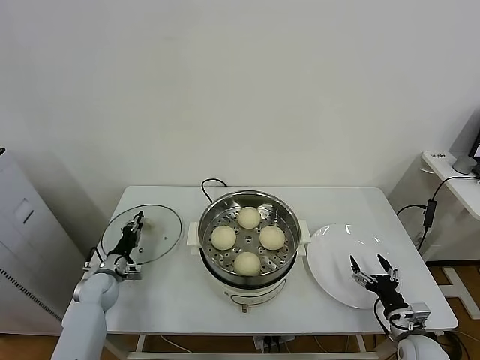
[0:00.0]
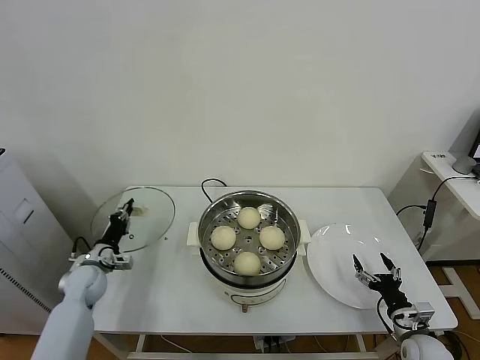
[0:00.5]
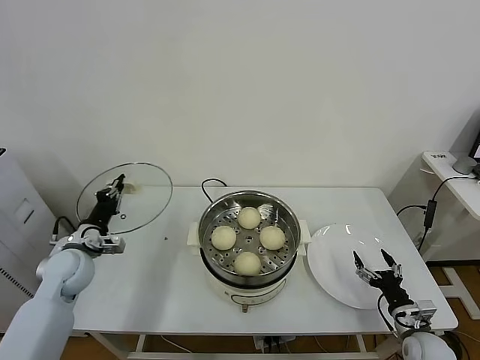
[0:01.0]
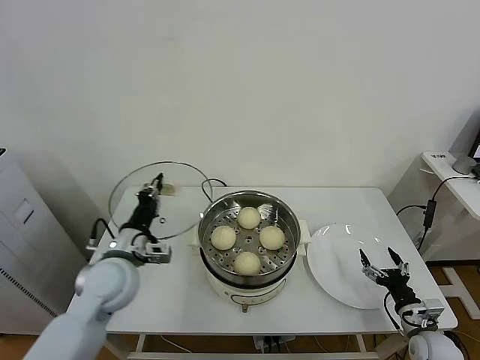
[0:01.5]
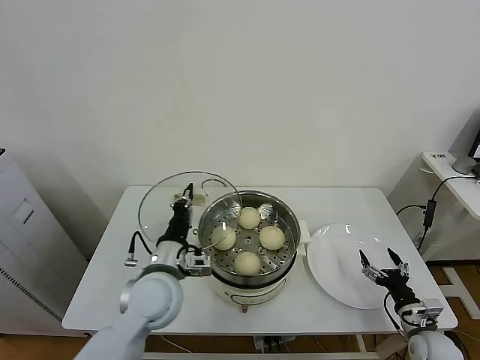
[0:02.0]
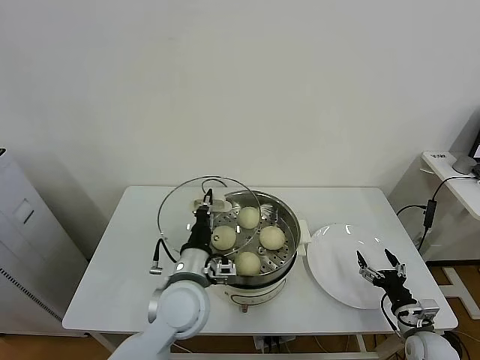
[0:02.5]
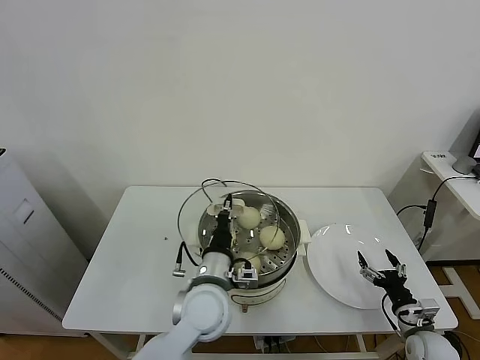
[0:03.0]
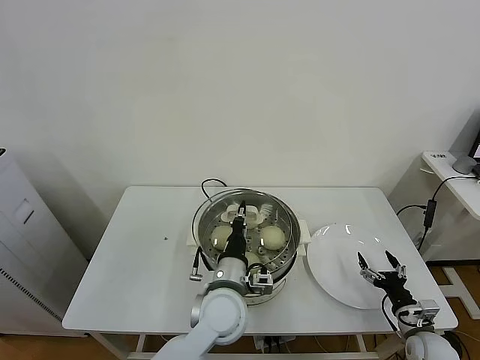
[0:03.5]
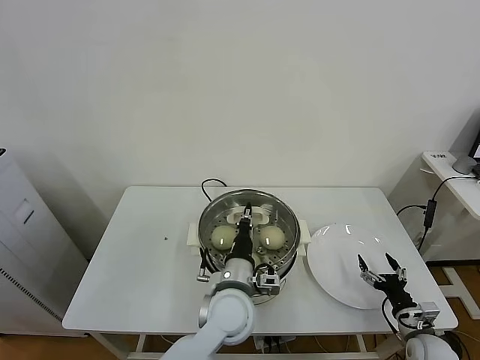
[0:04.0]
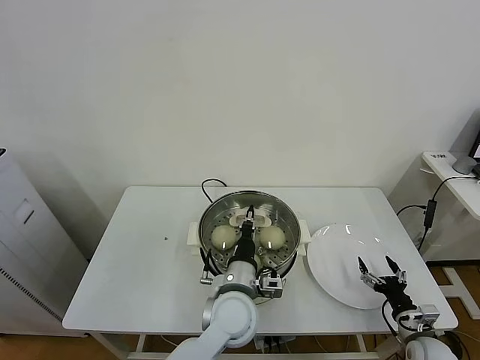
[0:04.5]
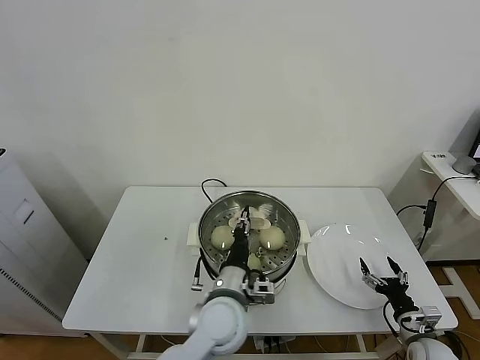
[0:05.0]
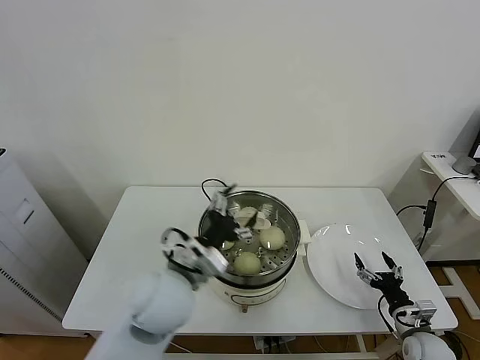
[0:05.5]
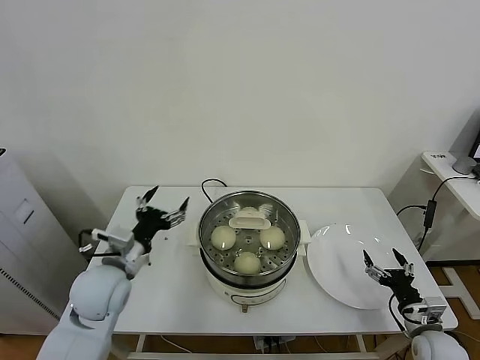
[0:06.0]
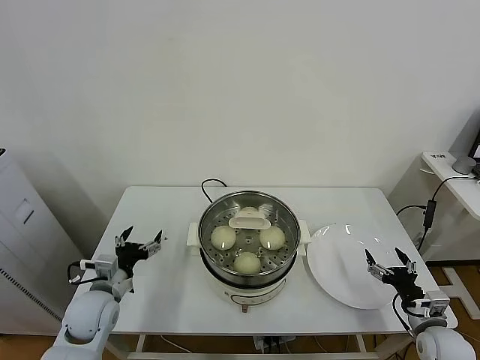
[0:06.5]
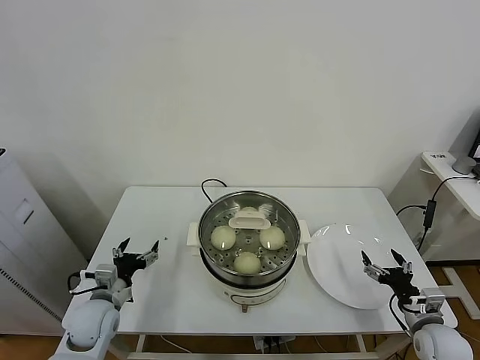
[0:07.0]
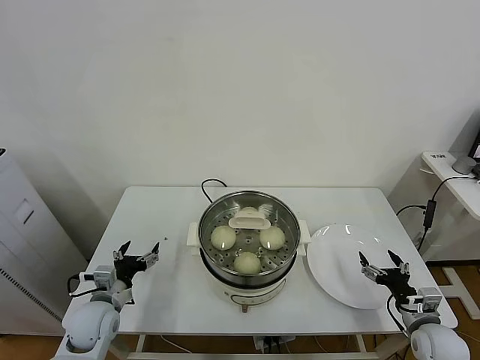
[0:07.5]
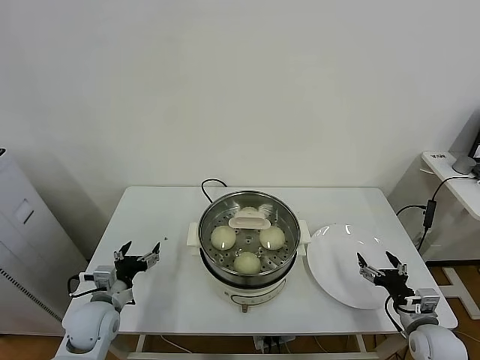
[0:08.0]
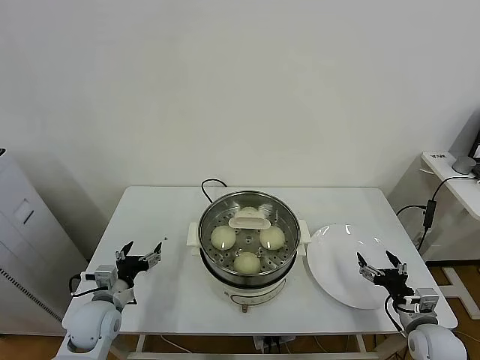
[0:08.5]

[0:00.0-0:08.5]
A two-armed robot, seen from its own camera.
Task of the whole recording: take steamed baozi put them in steamer.
Step, 0:00.5 to 0:05.0: Place the pot lid on the steamer with left gripper.
0:00.0 to 0:02.0: The left gripper heads to the right, upward and backward, covering about 35 cm.
0:02.0 to 0:04.0: The left gripper goes approximately 15 cm to the right.
0:04.0 to 0:06.5: The right gripper goes some 5 cm upward; the left gripper shifts some 30 cm to the left, and opens its fingers.
0:06.5 to 0:08.5: There are only small adjustments of the grippers.
